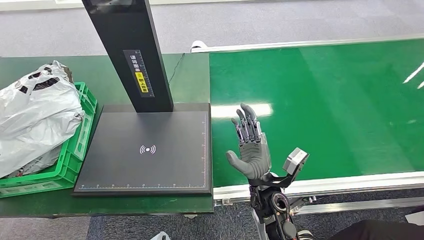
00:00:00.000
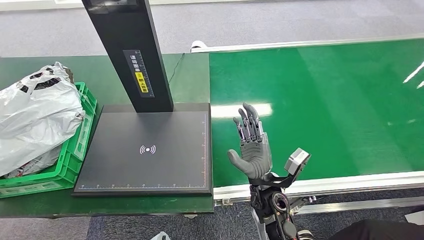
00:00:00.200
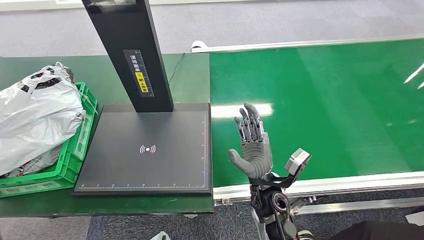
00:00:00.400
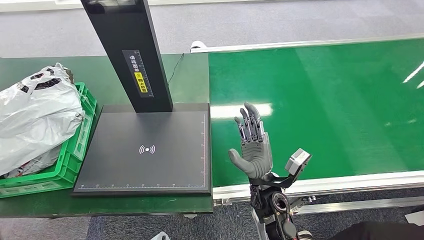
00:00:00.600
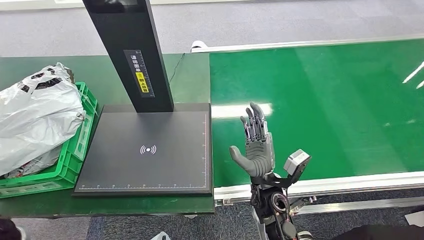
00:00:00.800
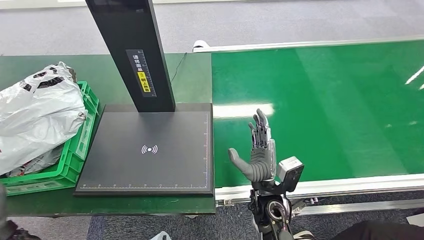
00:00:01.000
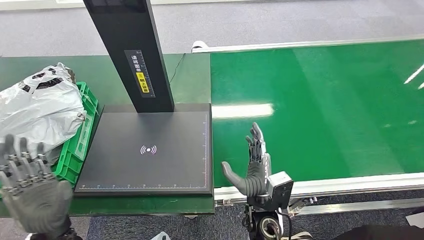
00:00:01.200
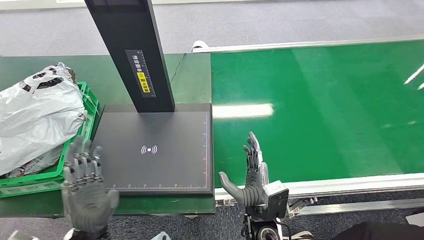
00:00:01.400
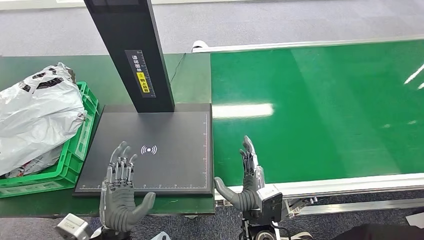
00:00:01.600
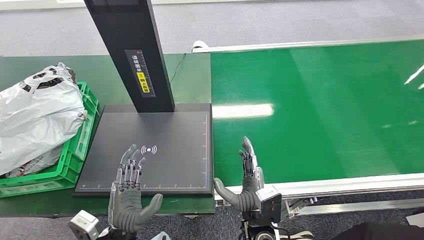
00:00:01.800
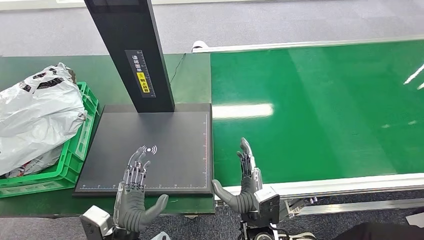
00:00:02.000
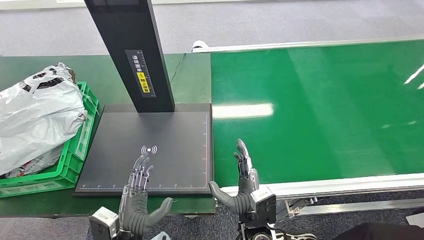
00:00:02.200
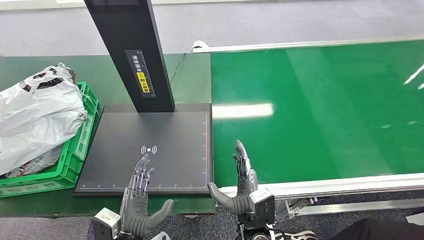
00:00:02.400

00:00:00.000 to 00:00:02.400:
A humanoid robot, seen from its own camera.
Step, 00:00:00.000 to 00:00:02.200: Place the package into the parcel locker.
00:00:00.000 to 00:00:01.200: The right hand is displaced backward by approximately 5 cm, while the left hand travels to the right and backward by approximately 35 cm.
00:00:01.200 to 00:00:02.400: The left hand travels to the right and downward by roughly 15 cm.
